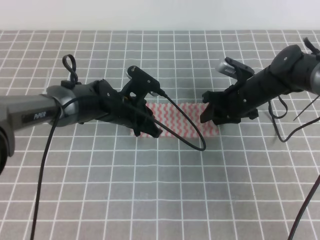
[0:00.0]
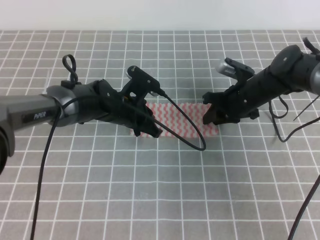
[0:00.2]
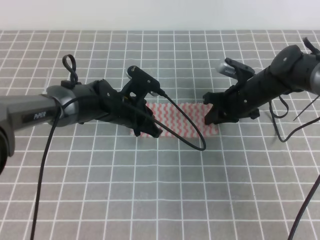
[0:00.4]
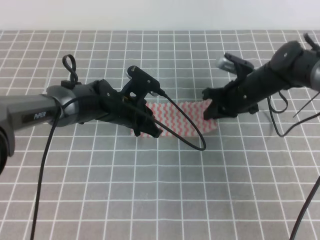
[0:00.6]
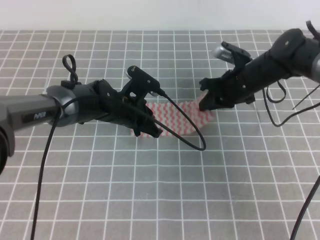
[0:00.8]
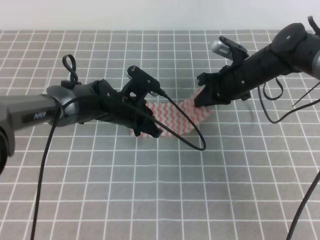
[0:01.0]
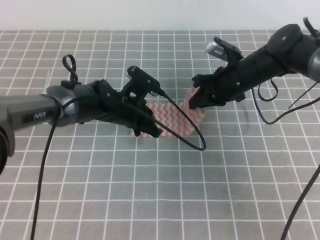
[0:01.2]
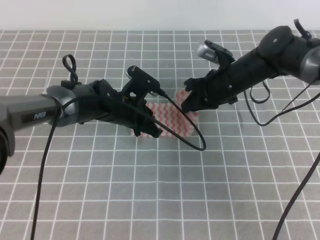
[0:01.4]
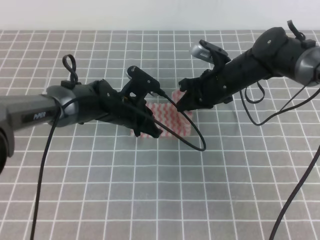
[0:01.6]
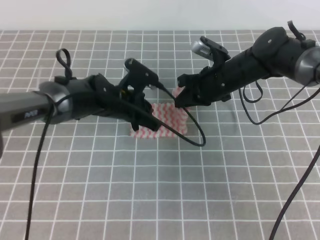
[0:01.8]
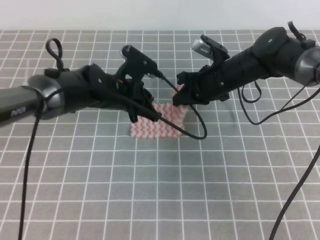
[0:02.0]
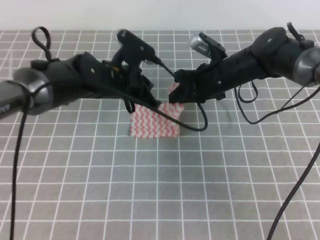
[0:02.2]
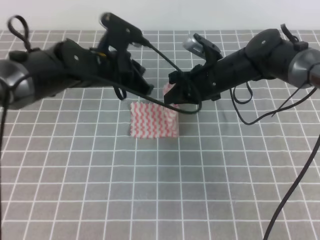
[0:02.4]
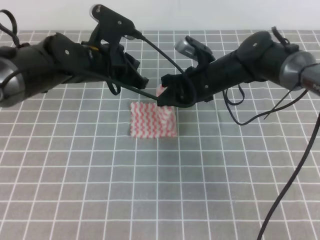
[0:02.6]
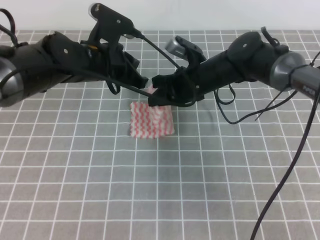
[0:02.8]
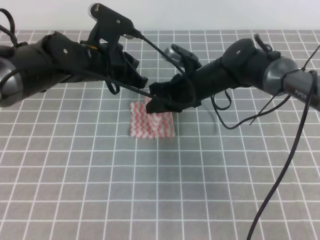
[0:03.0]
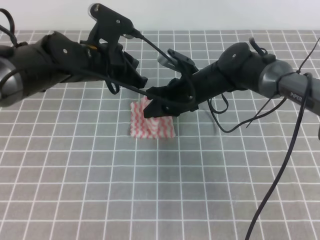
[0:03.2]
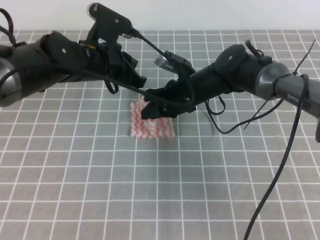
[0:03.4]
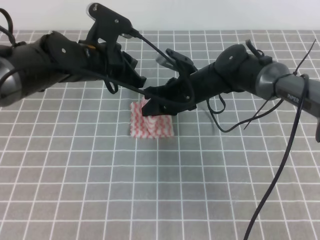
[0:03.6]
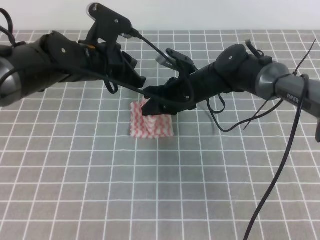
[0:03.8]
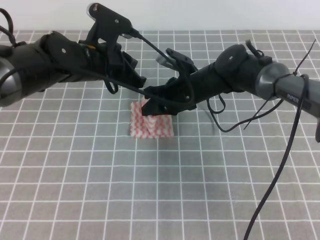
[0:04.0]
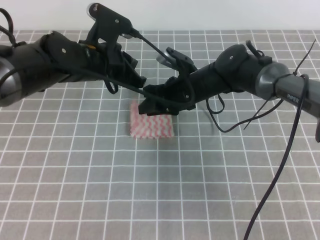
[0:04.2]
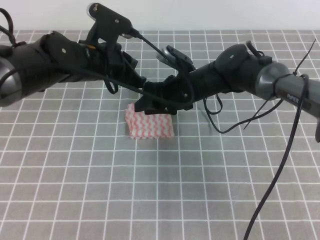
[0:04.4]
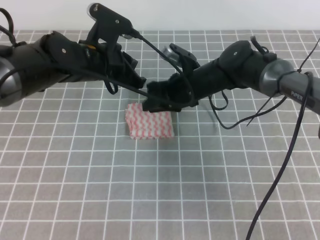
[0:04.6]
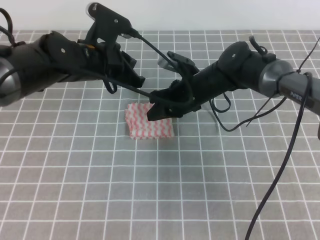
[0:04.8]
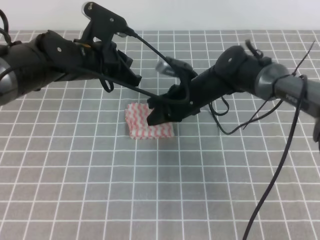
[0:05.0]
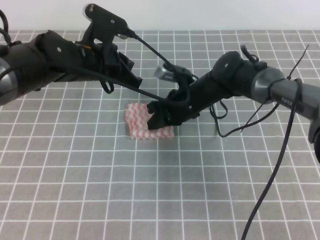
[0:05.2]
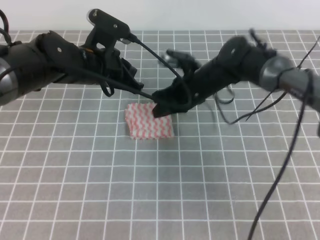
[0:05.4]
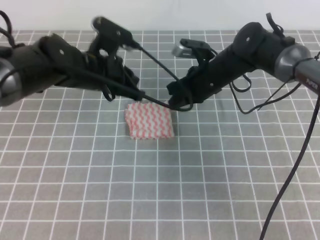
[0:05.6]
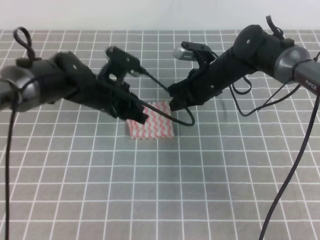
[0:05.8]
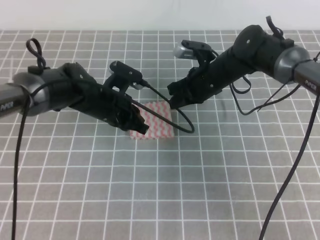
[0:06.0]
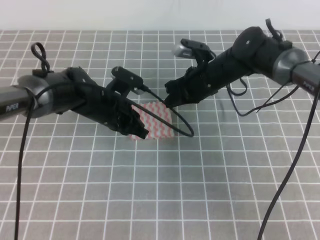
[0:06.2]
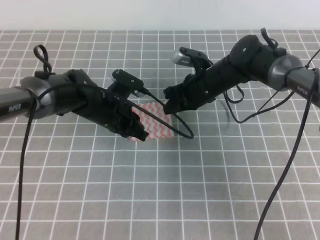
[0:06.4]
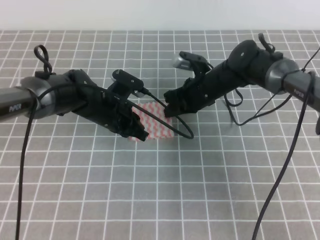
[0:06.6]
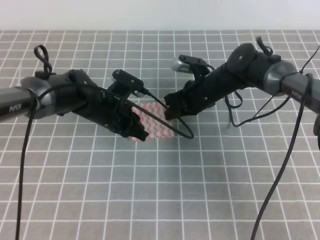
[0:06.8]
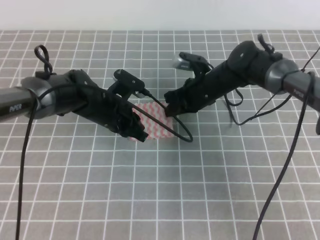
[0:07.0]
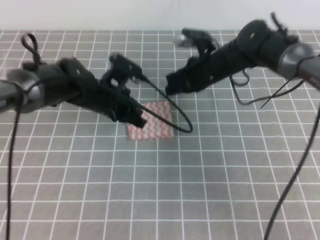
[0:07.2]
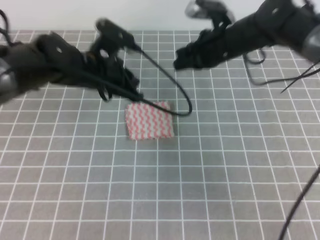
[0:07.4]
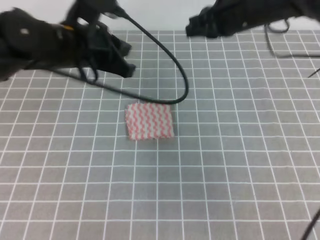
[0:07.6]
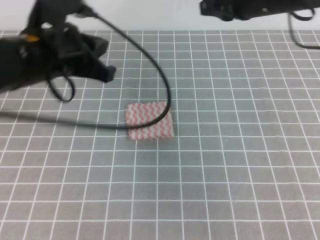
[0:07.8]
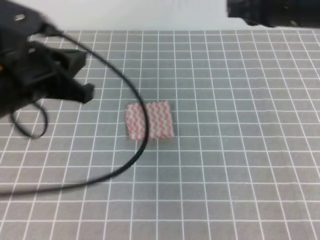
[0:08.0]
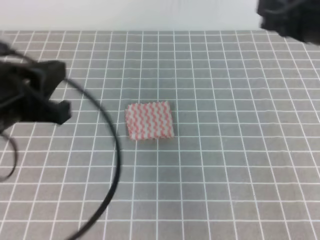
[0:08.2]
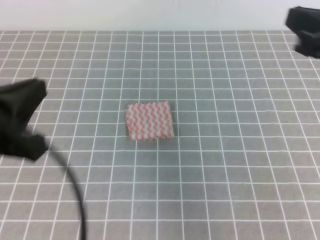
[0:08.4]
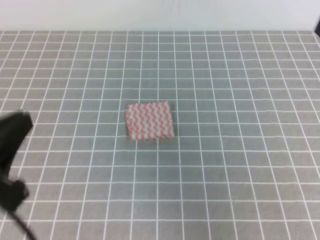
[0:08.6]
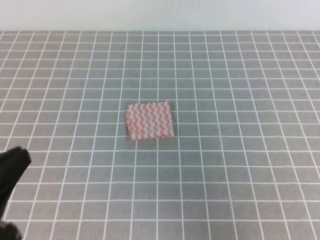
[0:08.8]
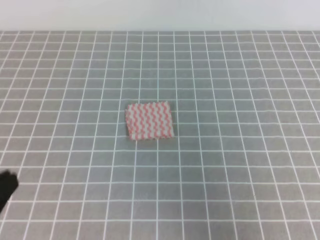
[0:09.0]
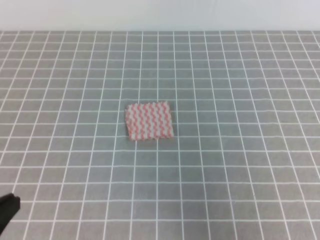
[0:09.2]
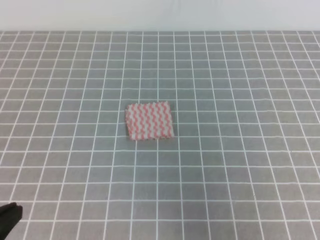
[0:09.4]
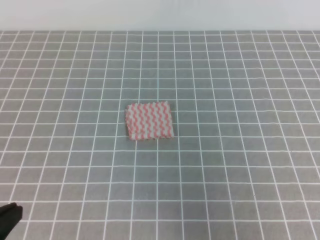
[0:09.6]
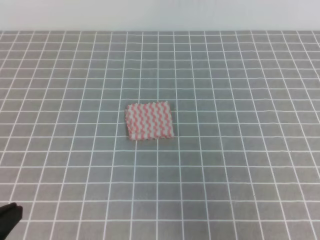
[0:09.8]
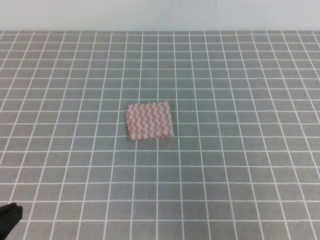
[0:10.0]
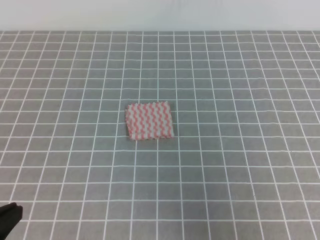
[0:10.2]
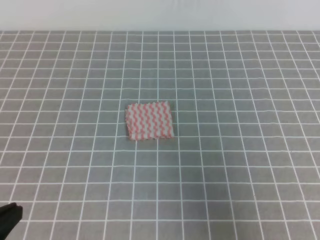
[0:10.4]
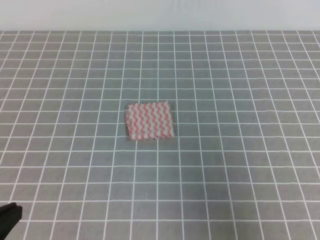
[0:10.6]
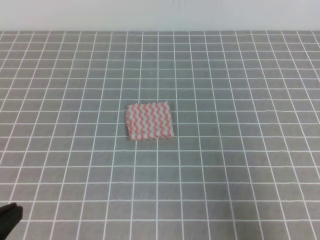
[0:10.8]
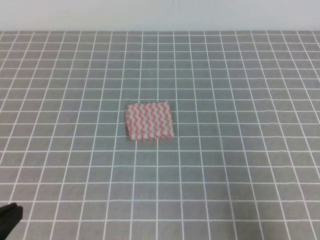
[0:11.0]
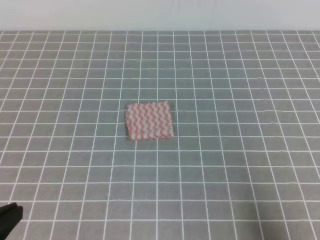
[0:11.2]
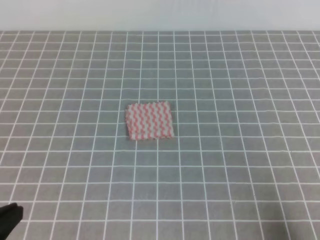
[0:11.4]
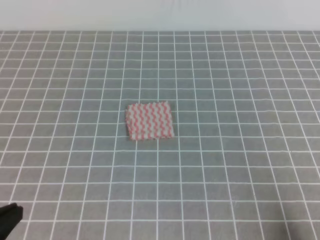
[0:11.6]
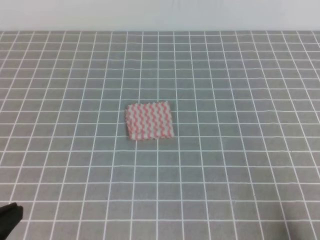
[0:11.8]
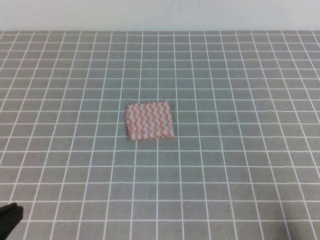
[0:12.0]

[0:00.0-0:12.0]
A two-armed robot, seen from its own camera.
0:00.0 to 0:01.6: The right gripper shifts by roughly 5 cm, and closes.
0:01.6 to 0:03.0: The left gripper is displaced upward by approximately 10 cm; the right gripper goes approximately 5 cm to the left.
0:03.0 to 0:04.4: The right gripper opens.
0:04.4 to 0:06.0: The left gripper heads downward, covering approximately 10 cm; the right gripper closes its fingers.
0:06.0 to 0:07.6: The grippers both shift upward by some 15 cm.
0:07.6 to 0:09.0: The left gripper goes roughly 30 cm backward and to the left. Meanwhile the right gripper travels backward and to the right by approximately 35 cm.
0:09.0 to 0:10.4: The right gripper changes place by approximately 5 cm.
0:10.4 to 0:12.0: The right gripper shifts approximately 15 cm downward.

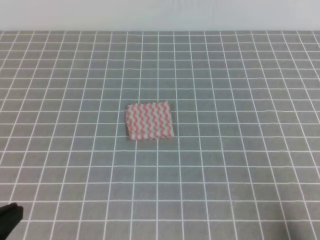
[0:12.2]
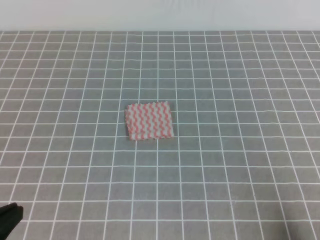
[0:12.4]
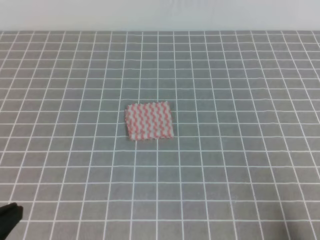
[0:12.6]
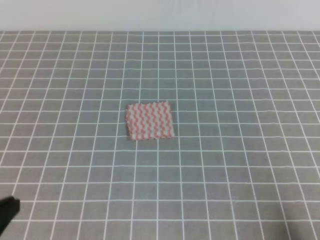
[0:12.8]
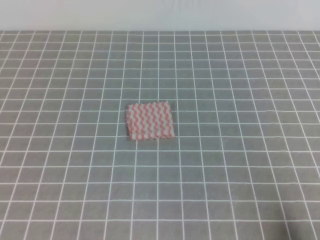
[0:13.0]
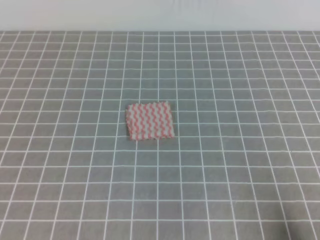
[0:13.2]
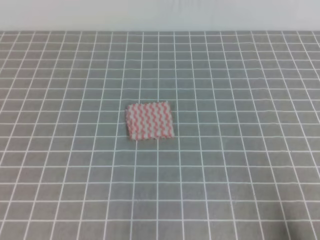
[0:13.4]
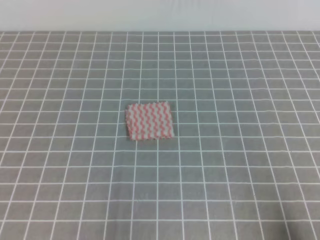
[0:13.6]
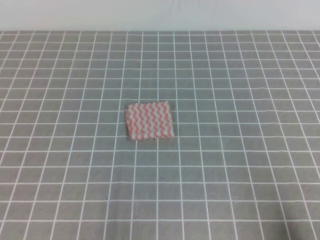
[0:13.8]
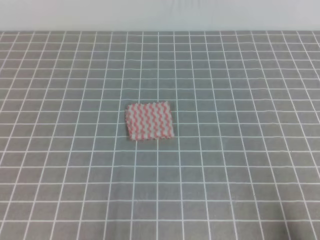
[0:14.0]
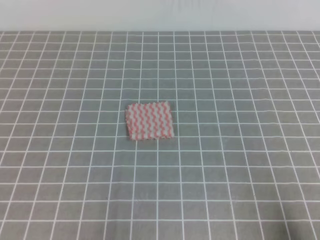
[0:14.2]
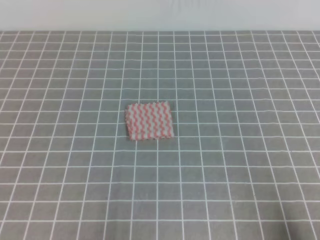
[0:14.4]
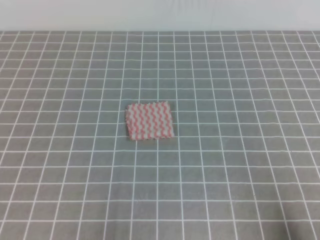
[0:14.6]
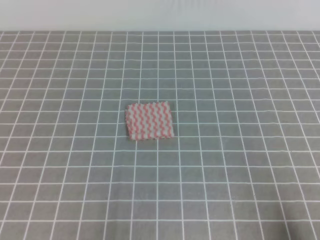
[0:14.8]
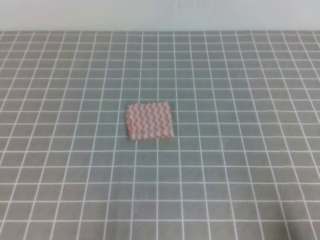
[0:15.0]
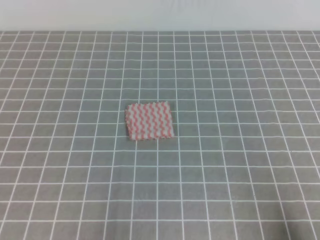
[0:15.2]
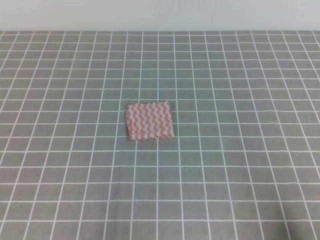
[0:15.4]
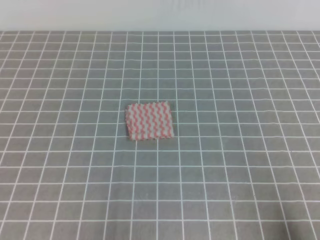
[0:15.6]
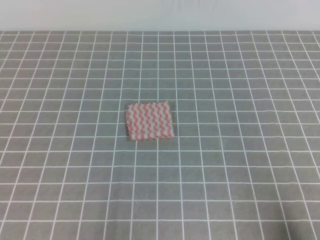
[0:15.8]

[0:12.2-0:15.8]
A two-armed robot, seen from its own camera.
0:12.2 to 0:14.0: The left gripper moves downward, about 10 cm.
0:14.0 to 0:15.8: The two grippers keep their place.
